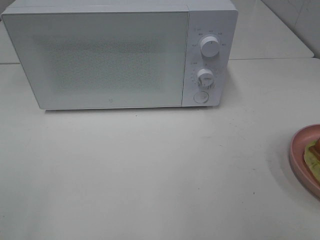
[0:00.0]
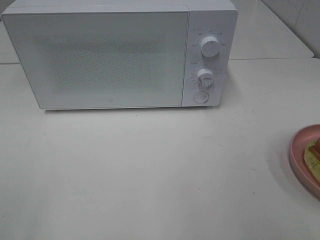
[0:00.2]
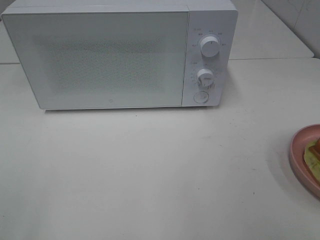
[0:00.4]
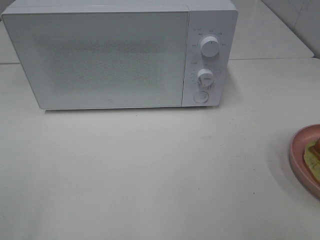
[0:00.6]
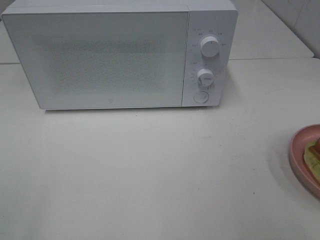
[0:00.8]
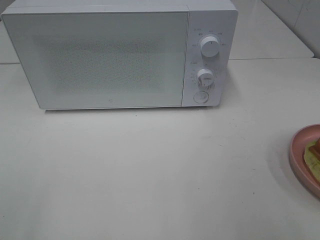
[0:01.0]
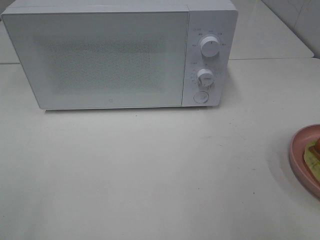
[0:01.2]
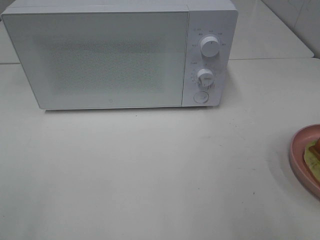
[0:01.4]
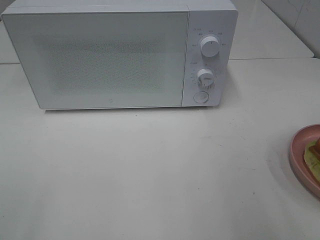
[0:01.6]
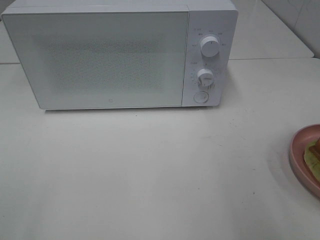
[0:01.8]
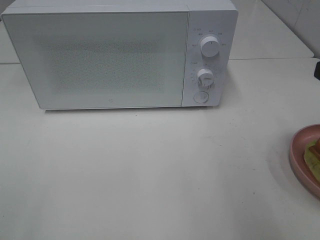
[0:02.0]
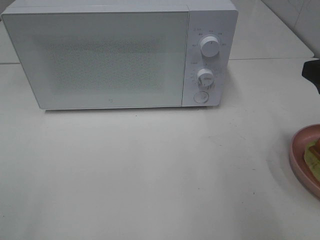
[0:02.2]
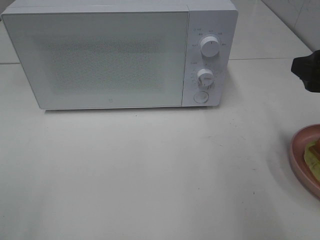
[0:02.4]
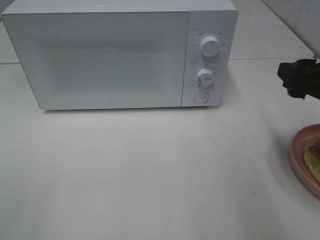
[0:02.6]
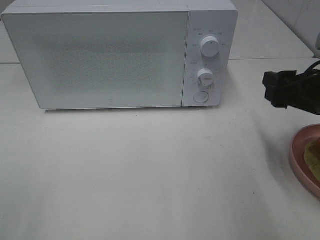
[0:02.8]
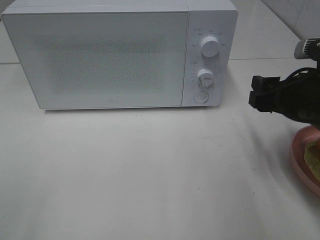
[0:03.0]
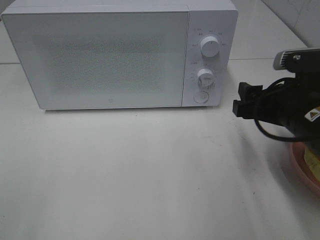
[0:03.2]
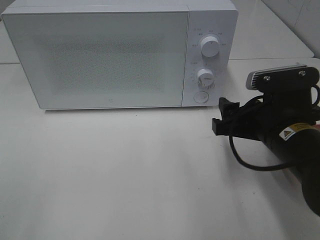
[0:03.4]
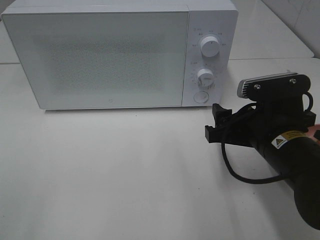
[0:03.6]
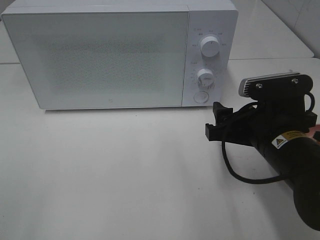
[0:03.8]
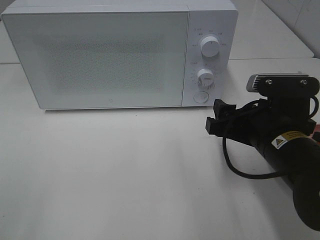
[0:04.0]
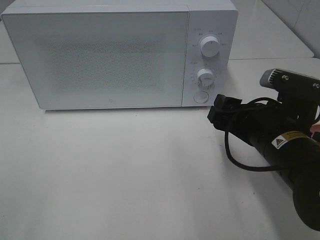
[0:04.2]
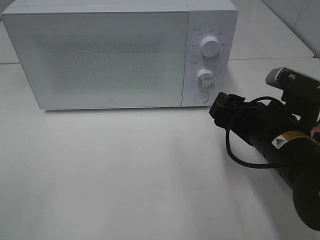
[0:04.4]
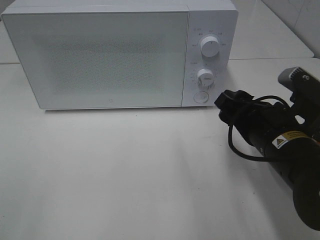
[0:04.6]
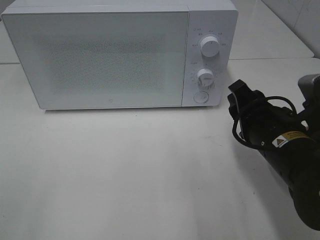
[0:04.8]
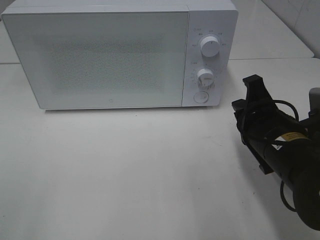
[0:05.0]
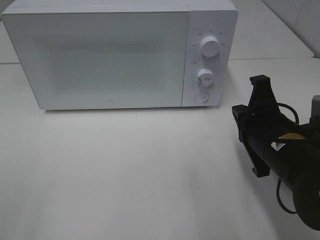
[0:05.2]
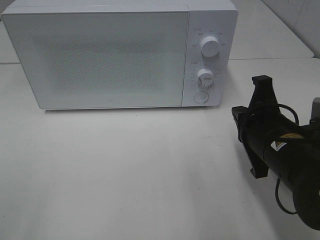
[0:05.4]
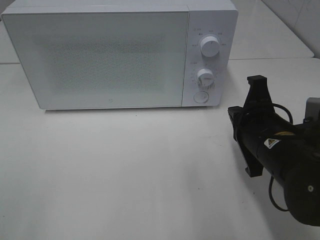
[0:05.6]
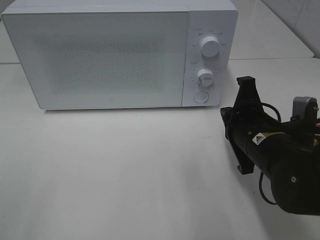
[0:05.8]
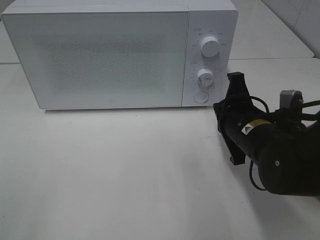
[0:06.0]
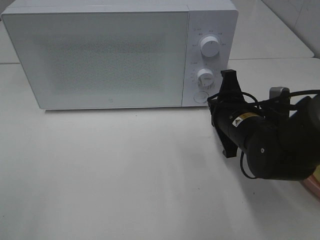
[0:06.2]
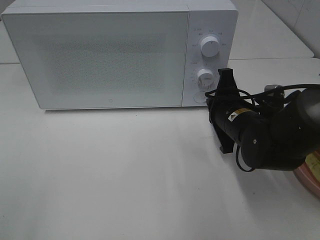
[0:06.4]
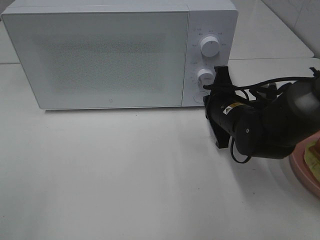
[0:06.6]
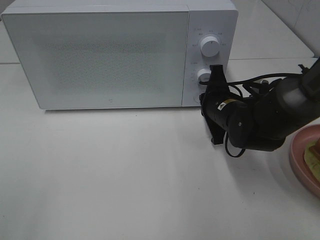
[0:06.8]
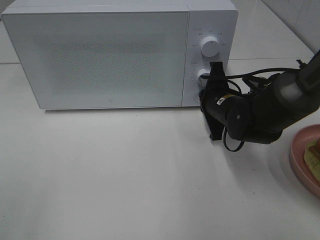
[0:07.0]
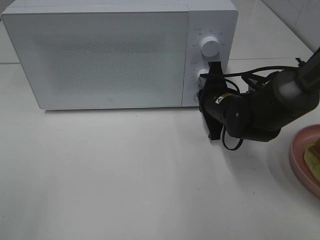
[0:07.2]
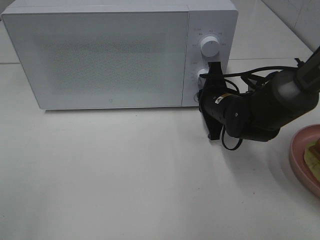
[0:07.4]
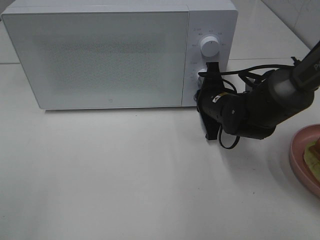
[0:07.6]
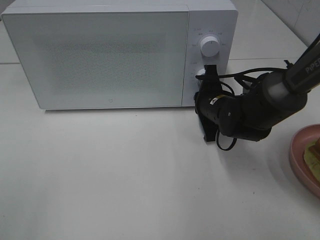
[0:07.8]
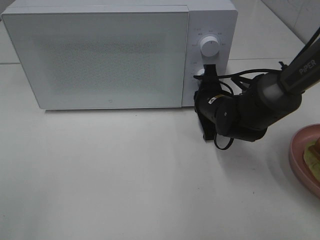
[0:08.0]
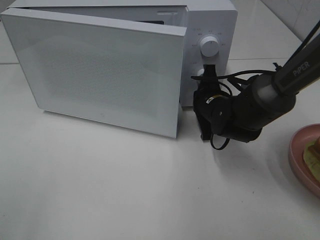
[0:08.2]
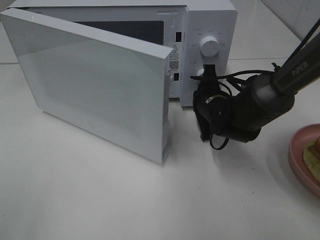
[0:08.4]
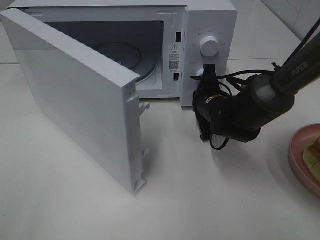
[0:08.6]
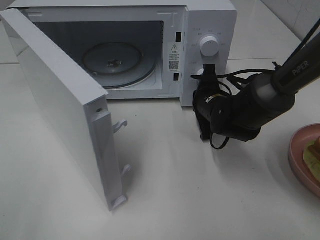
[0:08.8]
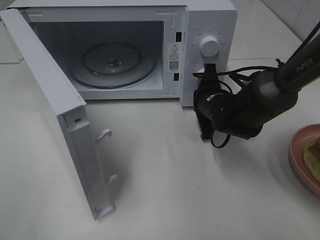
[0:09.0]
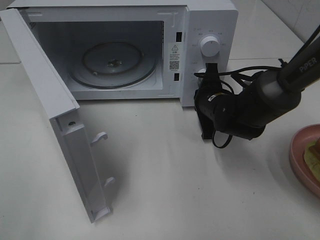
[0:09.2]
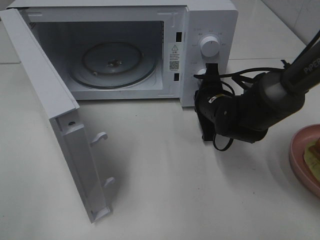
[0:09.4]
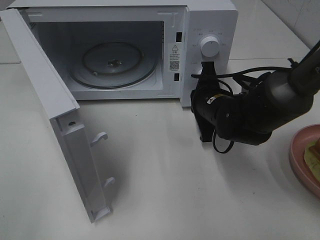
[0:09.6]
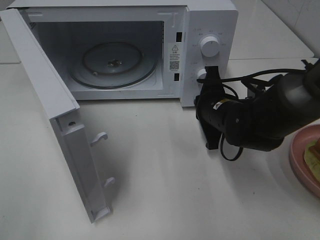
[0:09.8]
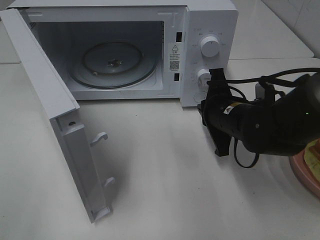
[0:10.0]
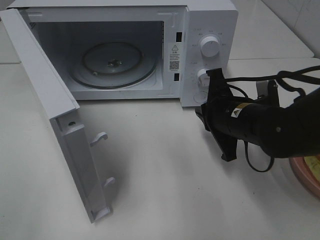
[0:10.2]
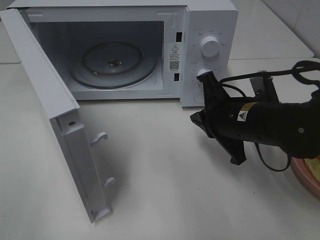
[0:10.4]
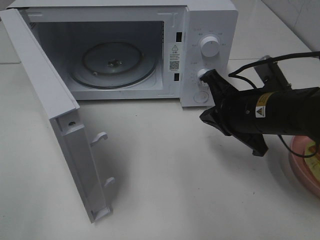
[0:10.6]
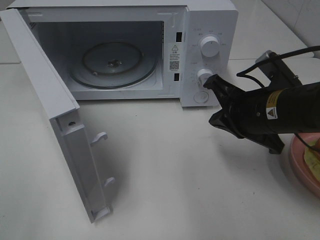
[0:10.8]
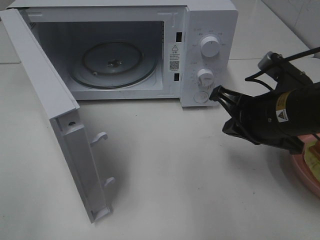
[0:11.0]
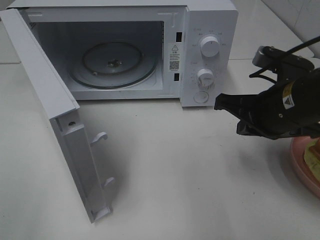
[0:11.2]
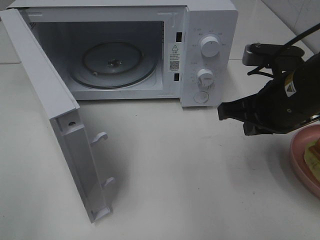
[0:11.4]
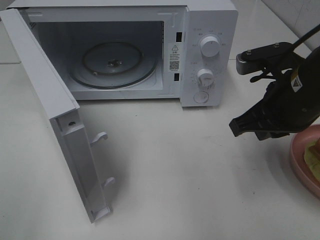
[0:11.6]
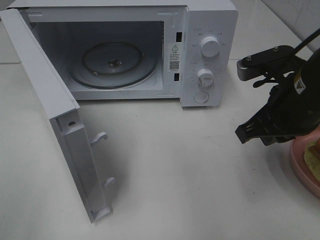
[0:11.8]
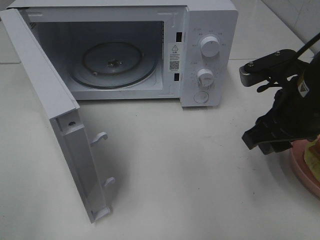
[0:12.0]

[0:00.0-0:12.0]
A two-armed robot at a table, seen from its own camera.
Task of the whole recording: Heat Sandwich.
Step, 0:00.0 to 0:09.4: Right hand: press the switch.
0:01.6 to 0:03.0: The right gripper heads forward, downward and to the left, covering roughly 15 cm.
0:03.0 to 0:04.4: The right gripper heads to the left, covering about 5 cm.
0:04.4 to 0:06.0: The right gripper changes place by about 5 cm, and closes.
0:06.0 to 0:07.6: The right gripper heads forward, covering approximately 10 cm.
0:09.0 to 0:10.4: The right gripper goes approximately 10 cm backward and upward.
0:10.4 to 0:12.0: The right gripper is displaced upward and to the right by roughly 10 cm, and opens its fingers.

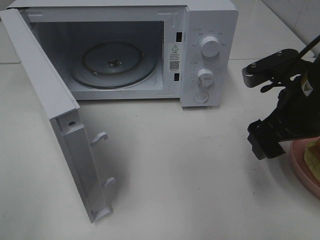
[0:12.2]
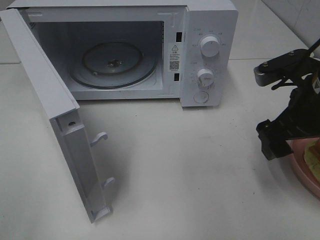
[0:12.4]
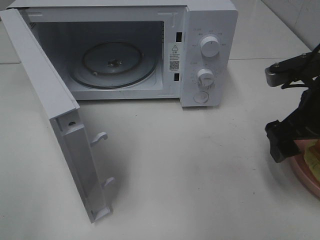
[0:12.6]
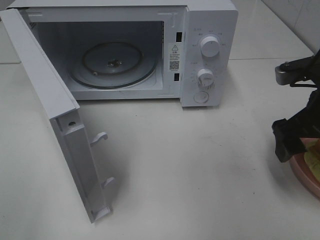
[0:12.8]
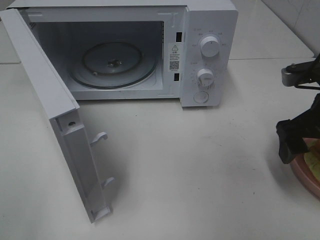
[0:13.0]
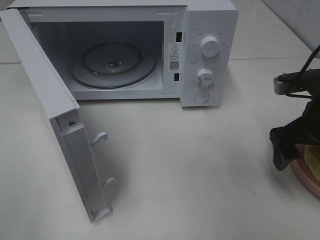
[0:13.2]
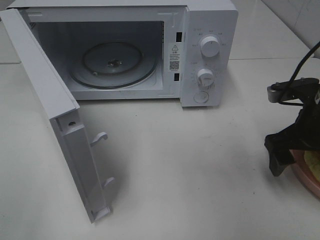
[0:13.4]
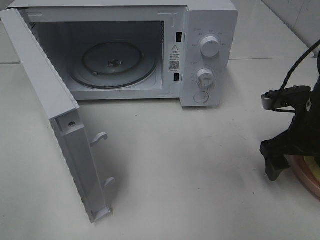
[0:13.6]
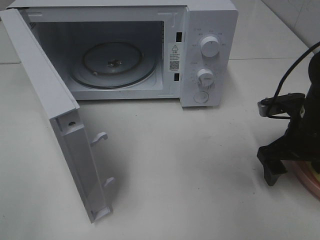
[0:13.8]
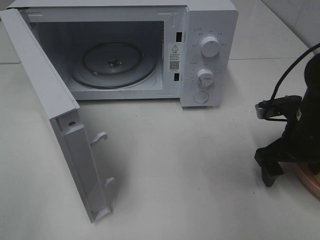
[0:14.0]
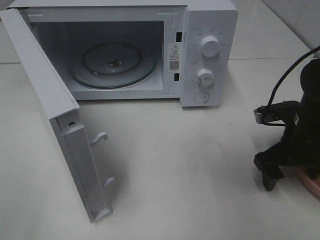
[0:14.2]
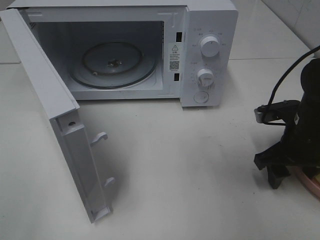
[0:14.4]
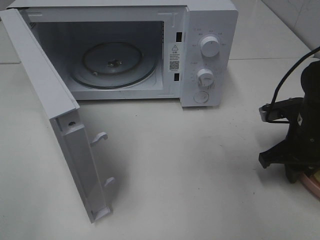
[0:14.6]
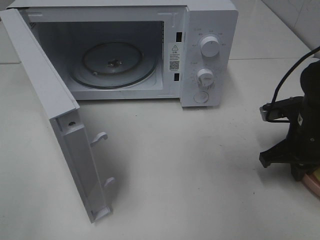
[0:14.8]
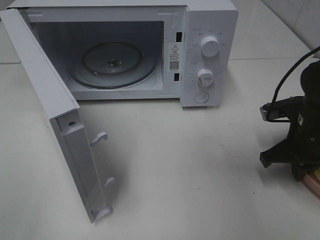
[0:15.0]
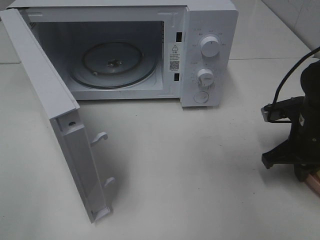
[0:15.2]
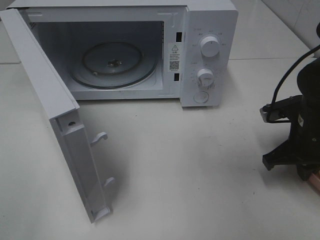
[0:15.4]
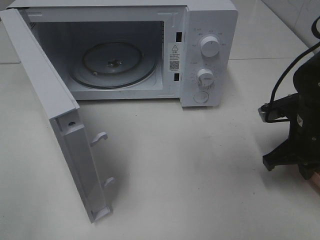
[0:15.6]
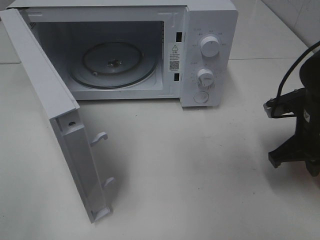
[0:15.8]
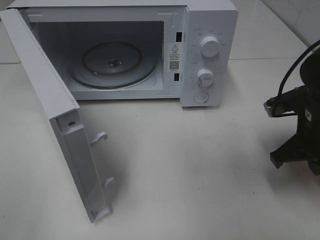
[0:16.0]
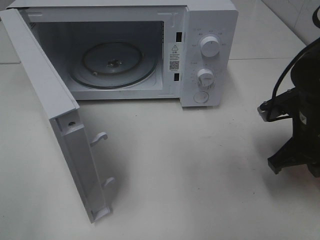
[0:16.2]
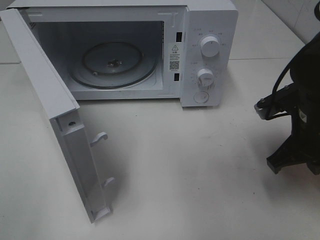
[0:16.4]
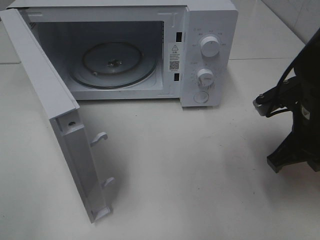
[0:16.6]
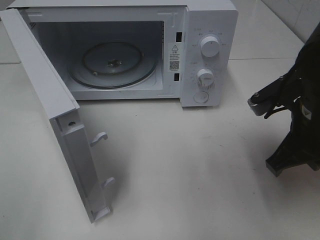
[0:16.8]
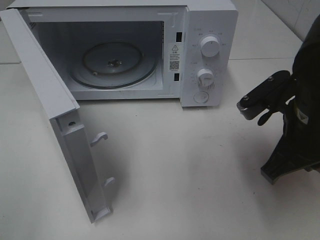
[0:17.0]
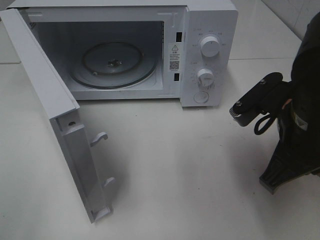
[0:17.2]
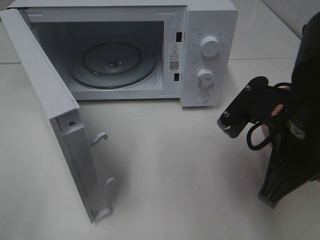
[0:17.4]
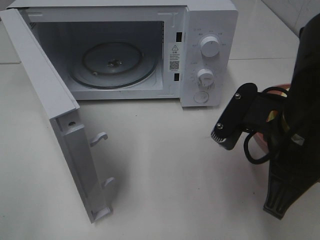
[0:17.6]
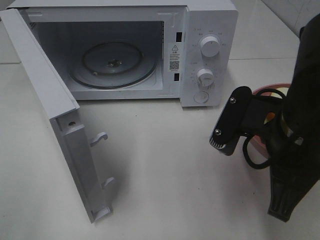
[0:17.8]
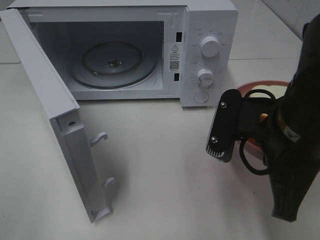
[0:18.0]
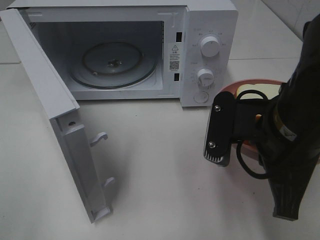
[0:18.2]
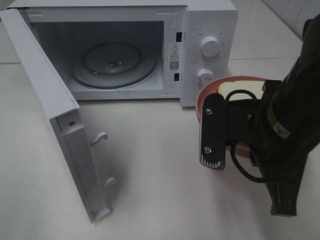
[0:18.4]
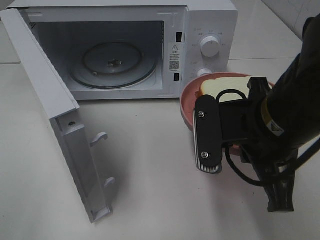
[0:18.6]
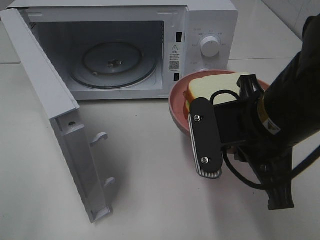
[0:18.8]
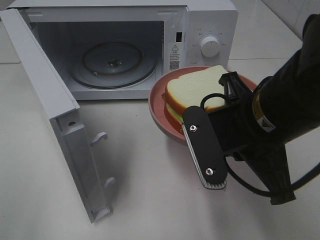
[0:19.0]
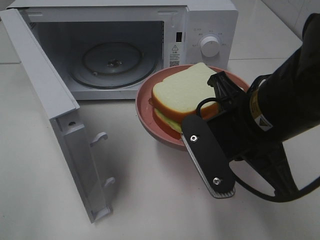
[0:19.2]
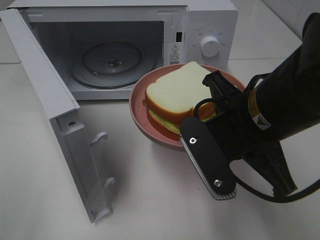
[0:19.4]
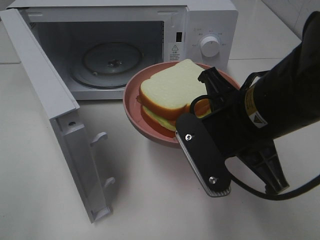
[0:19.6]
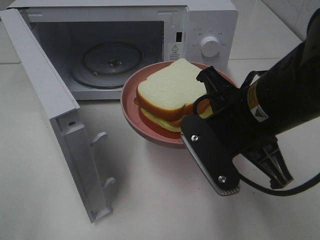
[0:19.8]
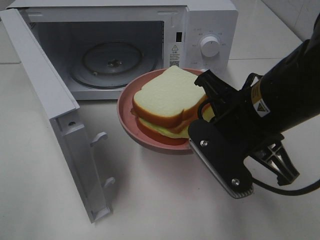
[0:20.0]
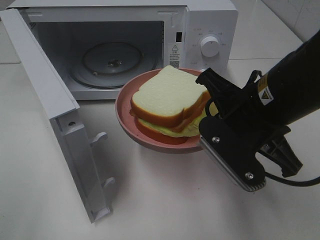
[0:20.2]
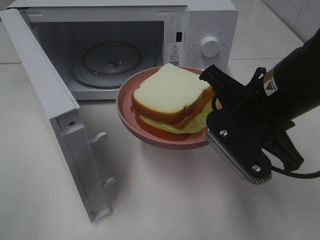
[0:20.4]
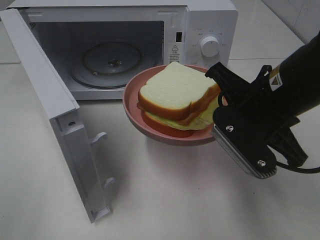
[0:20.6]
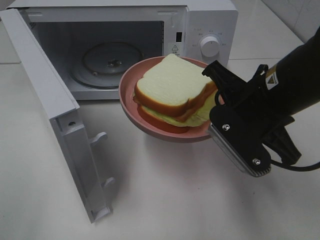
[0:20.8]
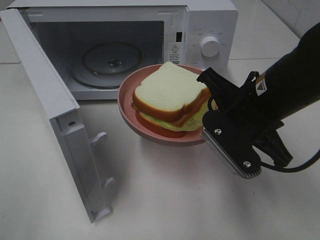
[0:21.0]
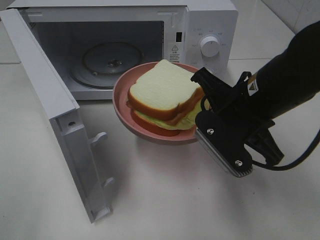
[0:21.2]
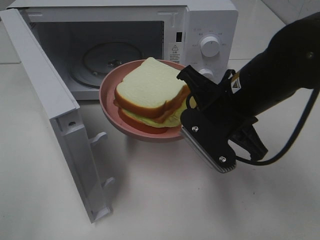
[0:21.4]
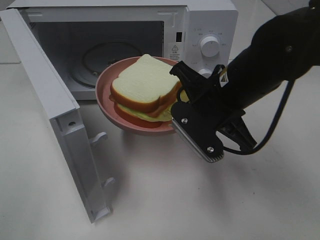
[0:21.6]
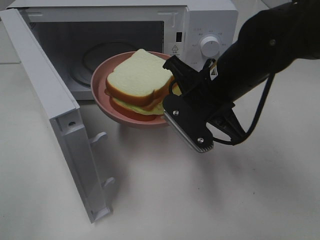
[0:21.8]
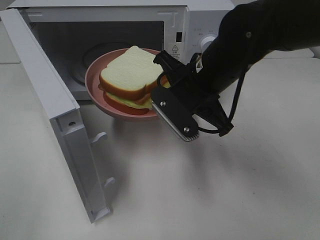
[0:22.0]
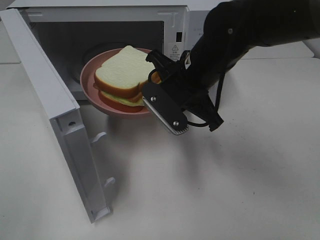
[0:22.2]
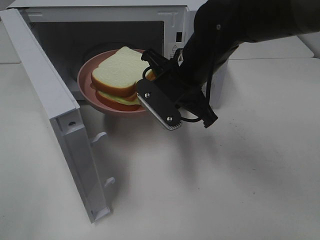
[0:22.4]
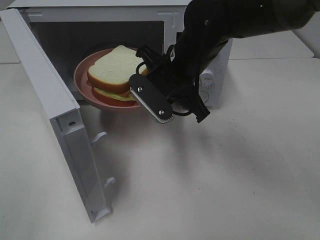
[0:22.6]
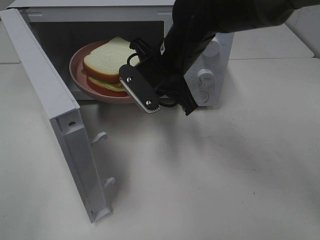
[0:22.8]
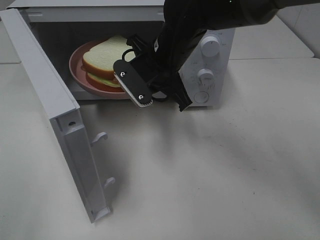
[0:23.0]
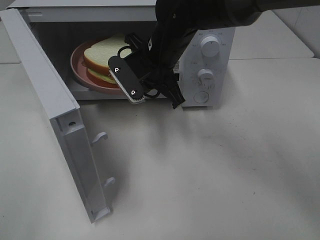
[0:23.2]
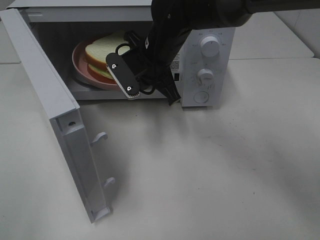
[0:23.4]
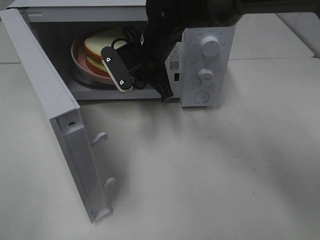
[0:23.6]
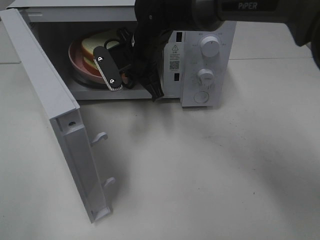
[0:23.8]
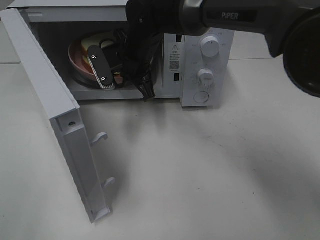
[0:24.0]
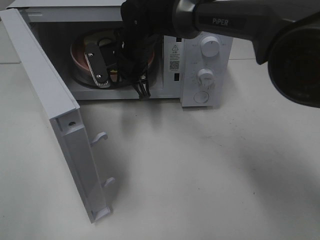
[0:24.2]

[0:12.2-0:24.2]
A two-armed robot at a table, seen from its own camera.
Task of the whole recording: Heat Sandwich.
Step, 0:12.2 to 0:14.6: Right hand: grab the plate with the sandwich.
0:12.2 to 0:13.8: The right gripper moves downward, about 10 cm.
0:13.8 to 0:15.2: The right gripper closes its fingers.
0:15.2 to 0:16.6: The right gripper shifts about 5 cm upward.
0:16.6 to 0:18.2: The right gripper heads to the left and backward, covering approximately 10 cm.
0:19.8 to 0:21.2: The right gripper moves some 5 cm.
0:21.2 to 0:22.6: The right gripper moves forward and to the left, approximately 15 cm.
0:22.6 to 0:24.2: The right gripper is displaced forward and to the left by approximately 15 cm.
